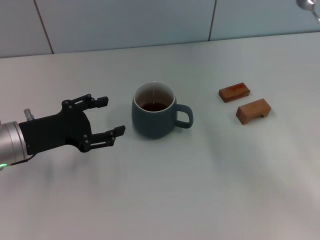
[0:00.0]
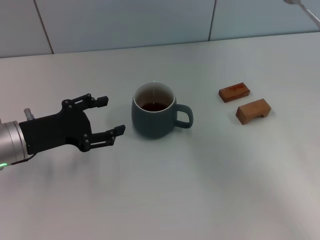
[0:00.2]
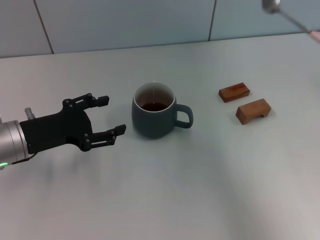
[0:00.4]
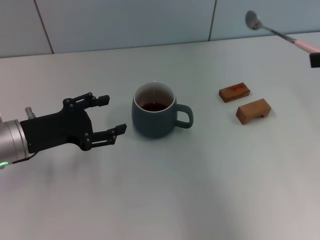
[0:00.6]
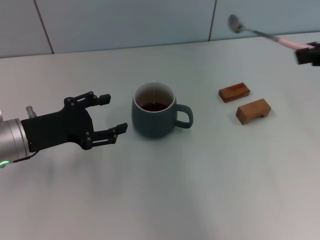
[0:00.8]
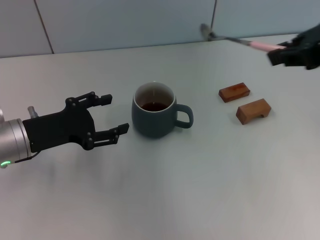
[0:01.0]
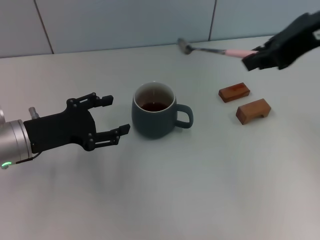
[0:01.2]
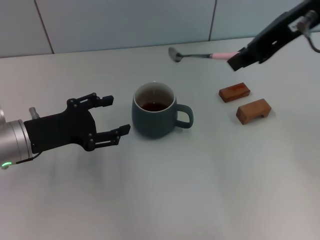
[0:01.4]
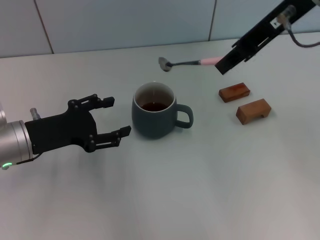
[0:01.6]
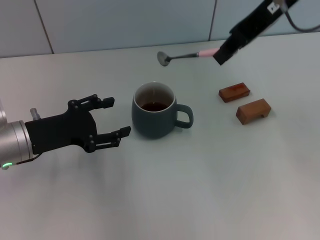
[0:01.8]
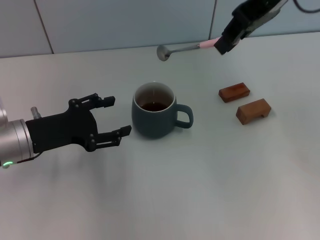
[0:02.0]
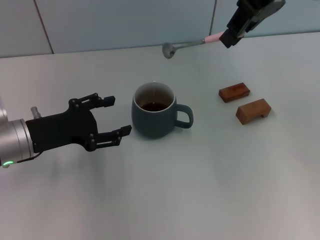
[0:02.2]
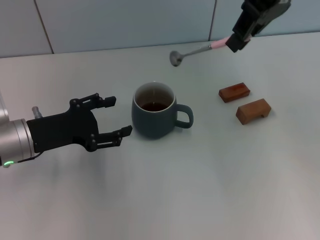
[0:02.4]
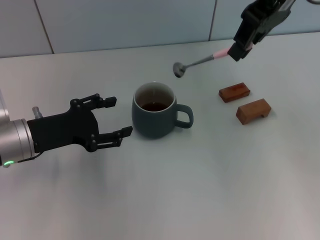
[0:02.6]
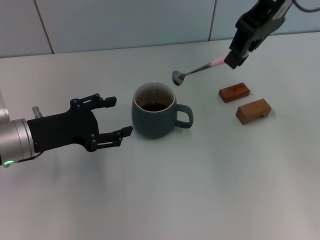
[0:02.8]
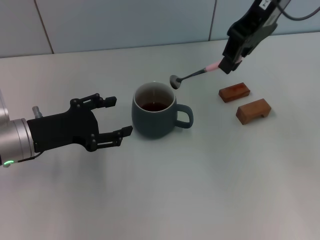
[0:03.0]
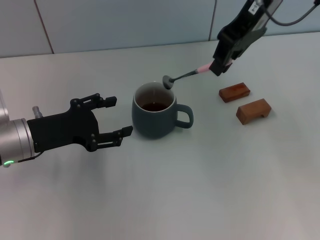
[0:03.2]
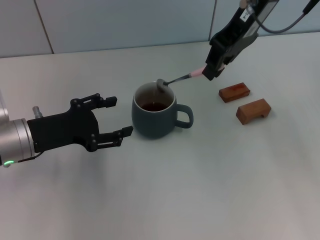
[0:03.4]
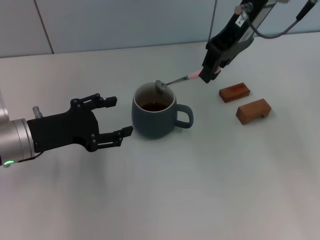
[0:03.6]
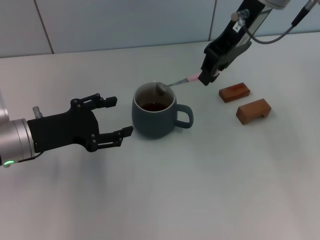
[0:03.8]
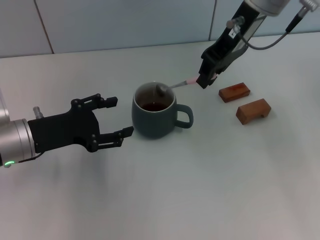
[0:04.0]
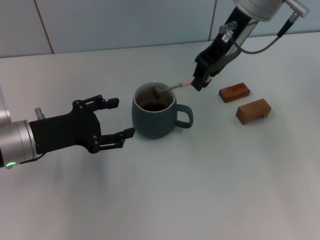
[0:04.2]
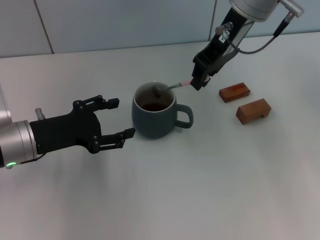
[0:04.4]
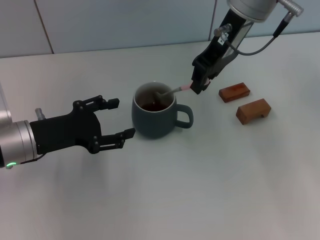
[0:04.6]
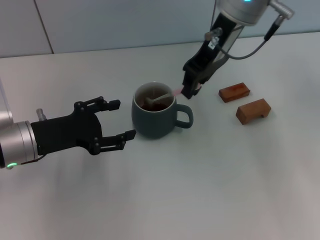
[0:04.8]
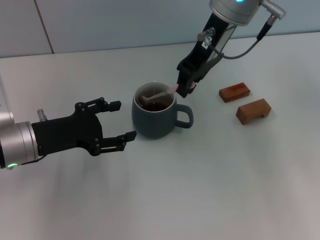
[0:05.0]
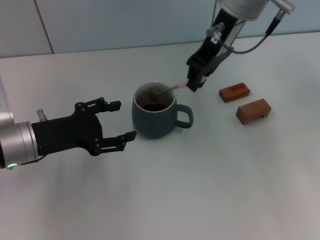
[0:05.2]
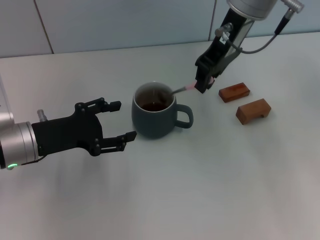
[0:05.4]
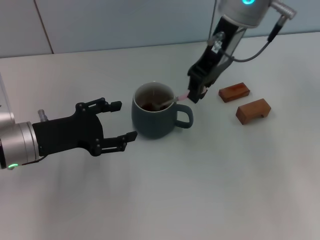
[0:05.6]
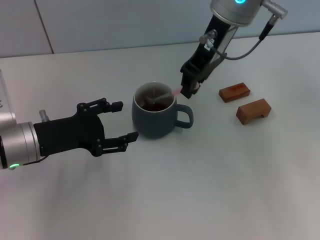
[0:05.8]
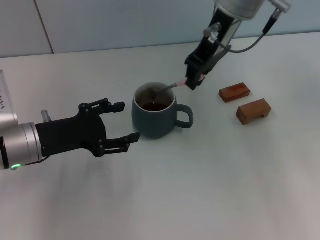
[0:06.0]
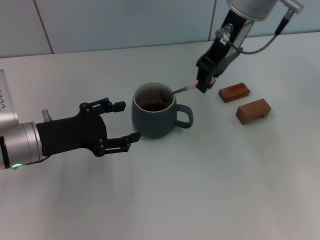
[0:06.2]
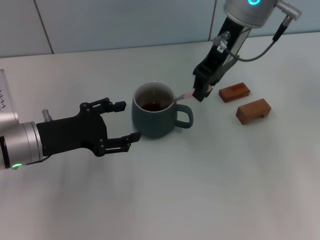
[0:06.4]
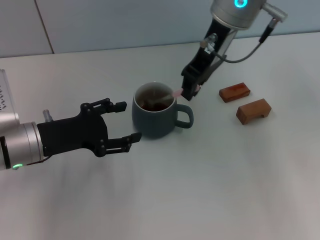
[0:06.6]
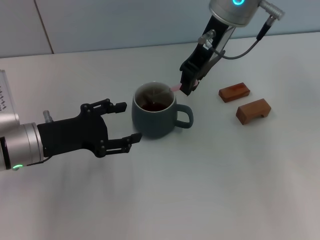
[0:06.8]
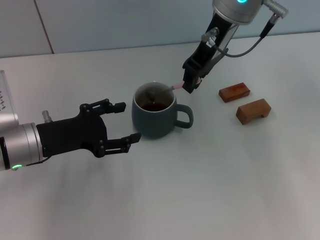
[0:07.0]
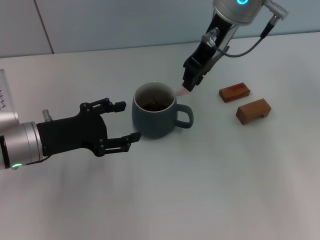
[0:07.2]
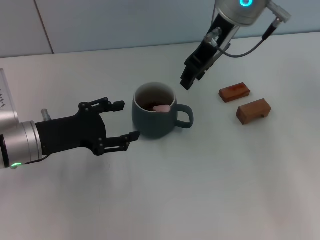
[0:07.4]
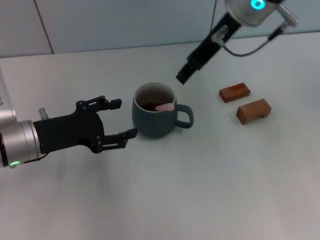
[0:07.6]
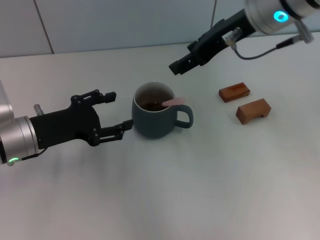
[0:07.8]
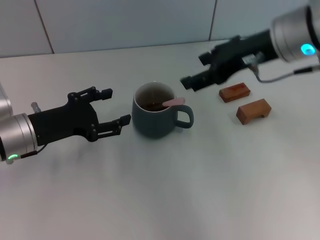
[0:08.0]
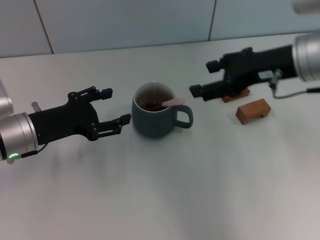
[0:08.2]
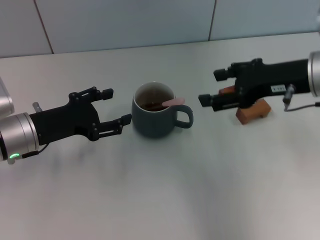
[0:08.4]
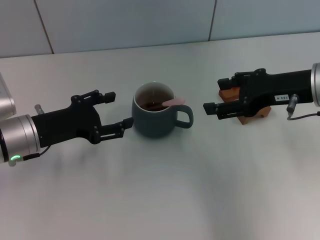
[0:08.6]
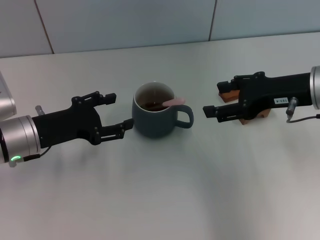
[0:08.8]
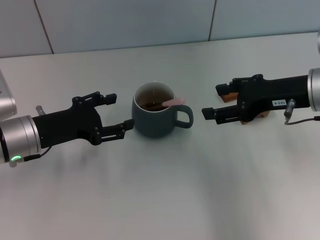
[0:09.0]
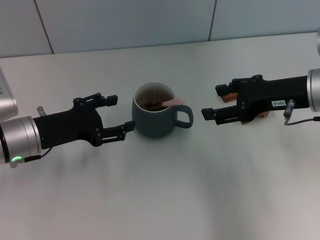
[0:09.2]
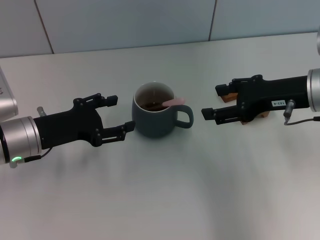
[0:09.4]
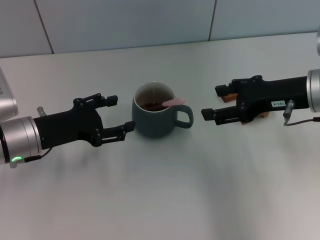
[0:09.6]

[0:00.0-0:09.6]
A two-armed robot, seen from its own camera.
Task of the whole recording: Move the grey cup to the center, lift the pink spoon, stir it three times in the cup, and put the spoon into the cup.
Step, 0:00.0 to 0:07.4: Stir the coffee in the cup with the right gripper.
0:00.0 to 0:01.6: The right gripper heads to the left, upward and forward, covering roughly 30 cm.
0:01.6 to 0:03.2: The right gripper travels forward by some 5 cm.
0:03.2 to 0:04.8: The right gripper moves about 5 cm.
0:04.8 to 0:06.4: The grippers move only a little.
0:06.4 to 0:08.0: The right gripper shifts roughly 10 cm to the right and backward, and opens up.
0:08.0 to 0:09.6: The right gripper travels downward and to the right by roughly 10 cm.

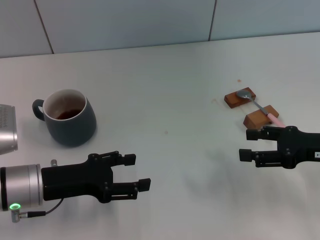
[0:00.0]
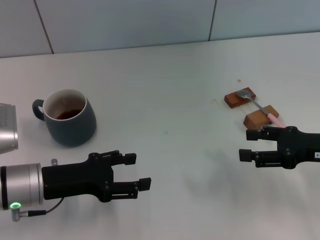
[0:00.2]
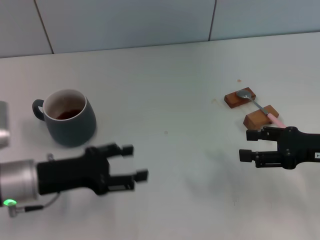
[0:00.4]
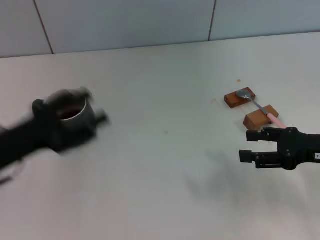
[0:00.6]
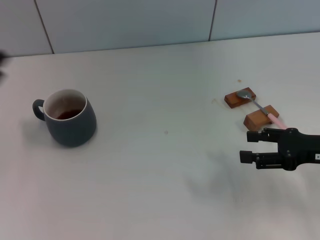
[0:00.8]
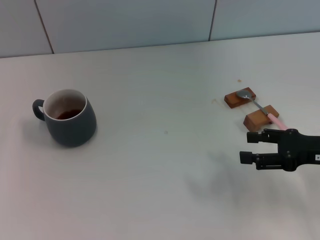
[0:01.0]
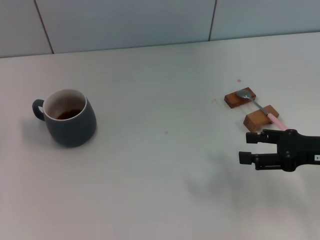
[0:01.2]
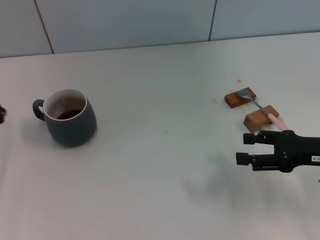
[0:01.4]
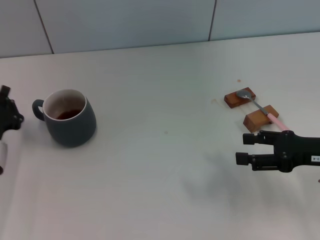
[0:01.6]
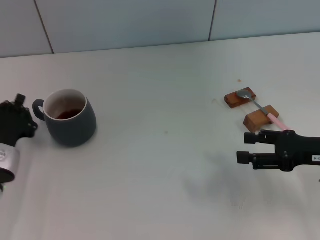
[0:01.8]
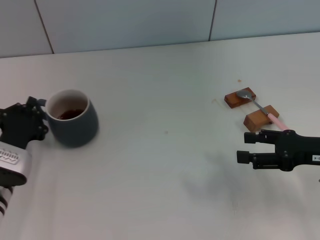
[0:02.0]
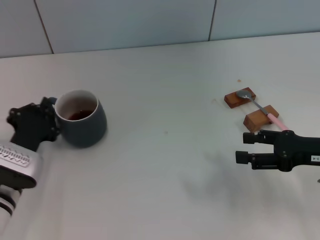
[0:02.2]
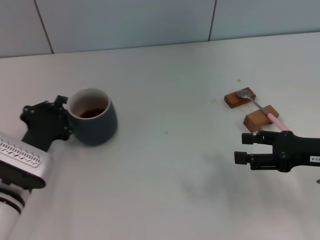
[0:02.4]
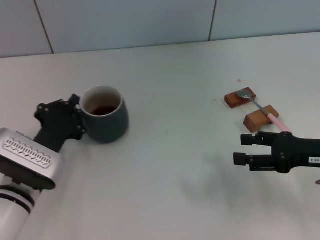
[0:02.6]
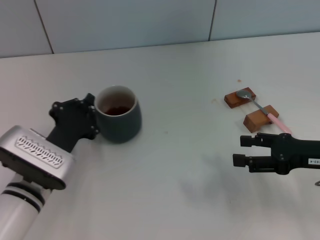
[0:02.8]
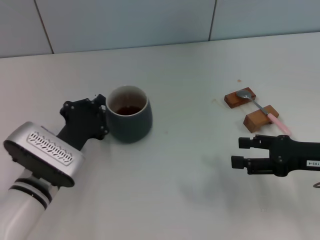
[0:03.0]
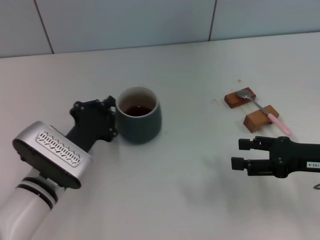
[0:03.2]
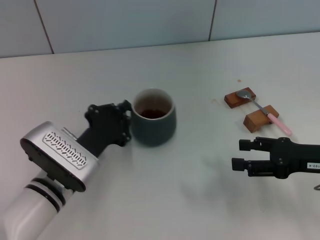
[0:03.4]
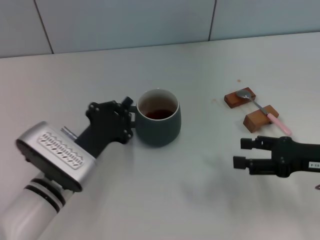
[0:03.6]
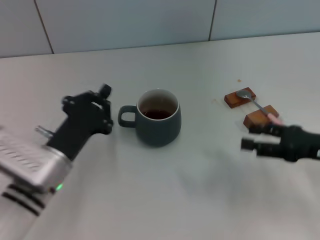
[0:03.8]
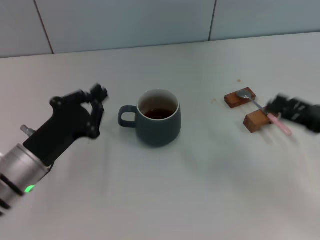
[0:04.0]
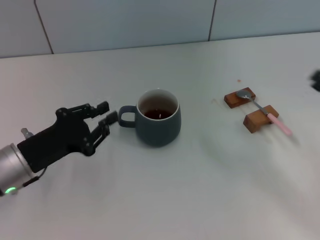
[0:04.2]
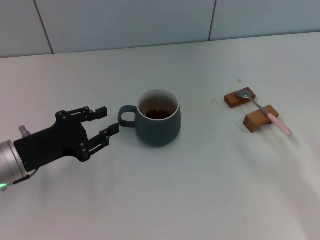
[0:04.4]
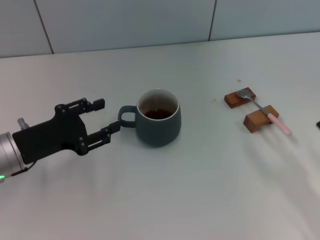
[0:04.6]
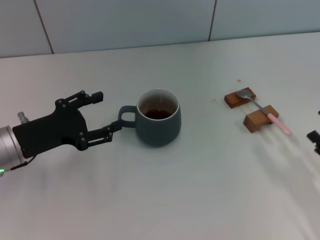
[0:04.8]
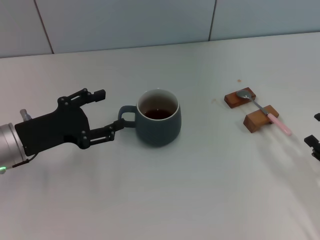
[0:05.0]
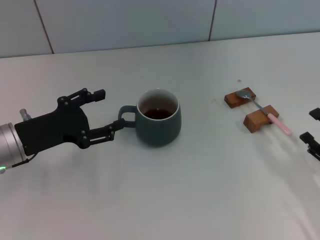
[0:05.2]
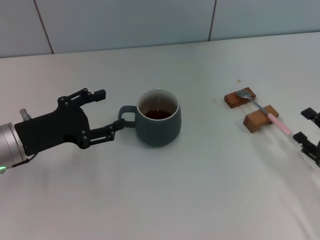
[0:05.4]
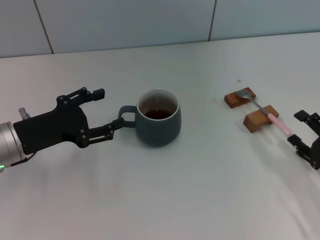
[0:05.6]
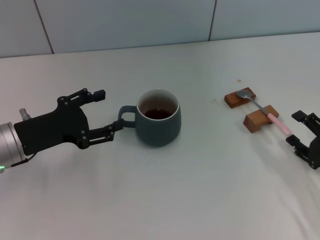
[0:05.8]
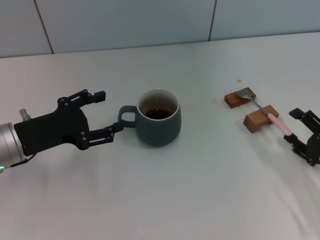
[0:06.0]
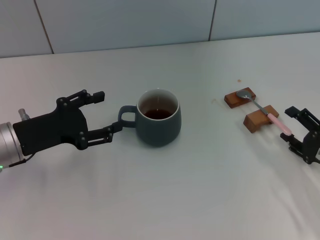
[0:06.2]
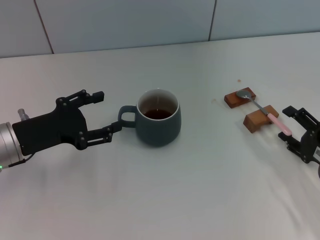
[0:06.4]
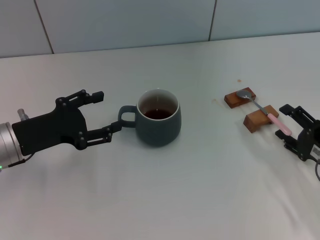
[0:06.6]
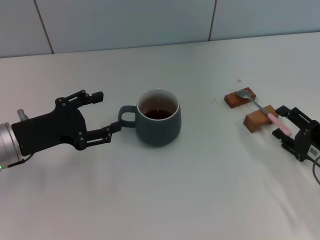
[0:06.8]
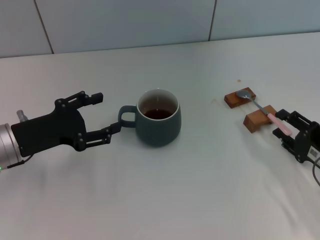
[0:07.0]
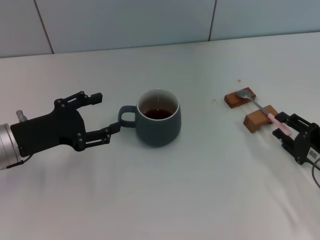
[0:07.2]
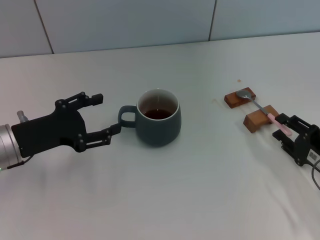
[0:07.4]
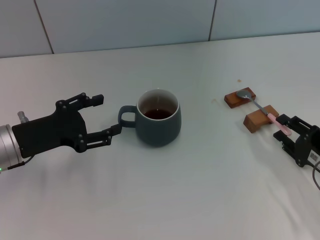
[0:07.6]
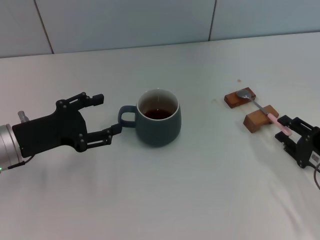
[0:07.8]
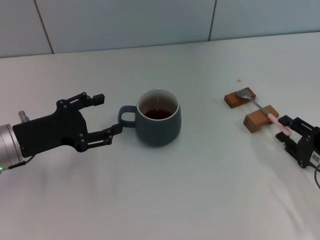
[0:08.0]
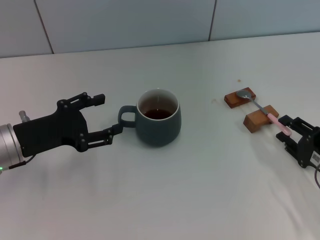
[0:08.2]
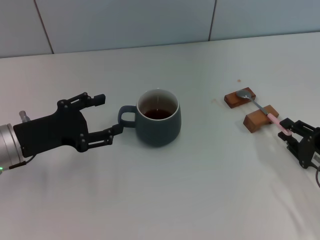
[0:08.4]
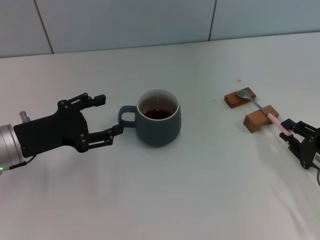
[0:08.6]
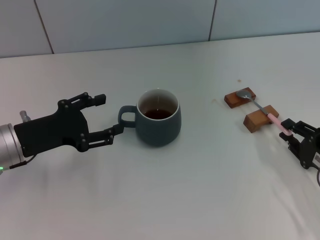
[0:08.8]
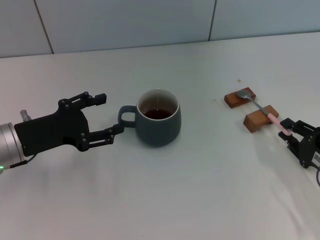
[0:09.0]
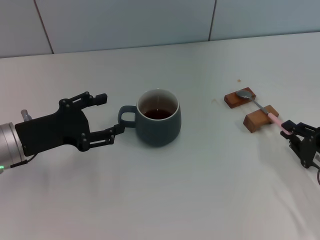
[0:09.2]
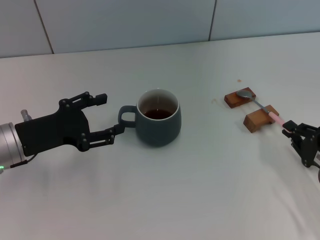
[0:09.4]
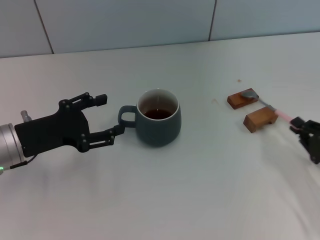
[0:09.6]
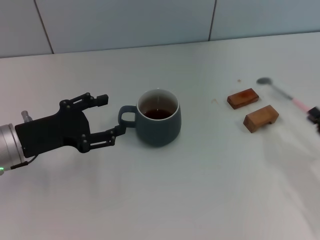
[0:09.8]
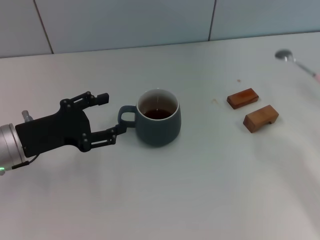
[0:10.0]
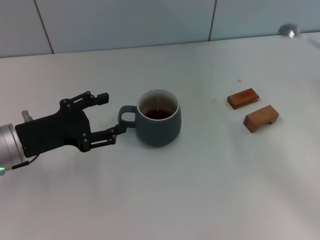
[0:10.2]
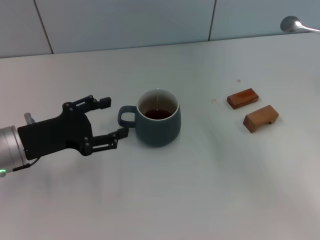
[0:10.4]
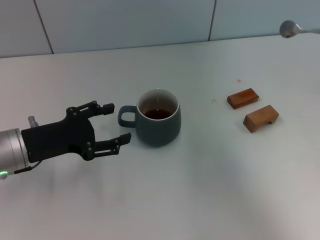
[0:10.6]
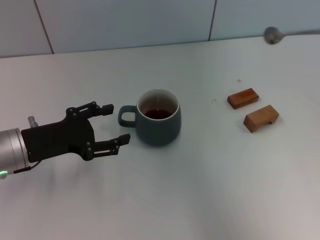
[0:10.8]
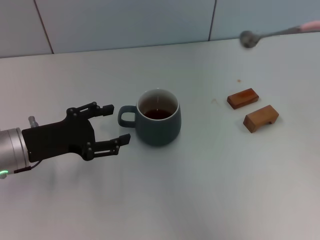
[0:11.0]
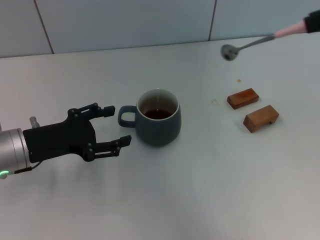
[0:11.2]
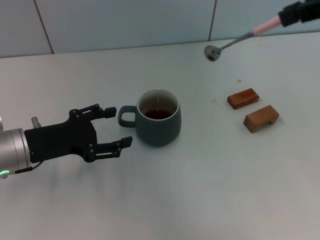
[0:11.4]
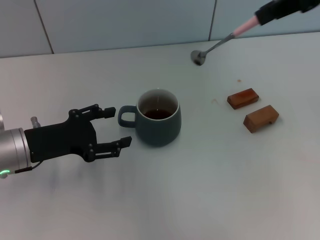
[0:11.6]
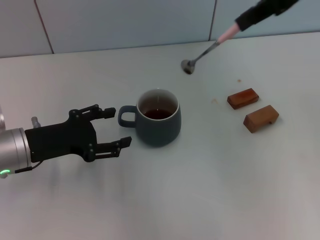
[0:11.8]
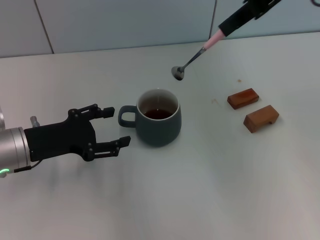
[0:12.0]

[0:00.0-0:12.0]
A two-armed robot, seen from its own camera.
Task of the whole recording: Move the grey cup to the center, lift the pink spoon, stir it three times in the cup, and put the spoon into the cup.
Step, 0:00.0 to 0:03.4: Move the cup with coffee to the center of view with the left gripper.
Step, 0:03.8 to 0:09.6: Pick up the spoon with the right gripper.
0:00.0 to 0:01.6: The left gripper moves to the left, about 5 cm, and closes.
0:01.6 to 0:03.0: The left gripper moves to the right, some 10 cm.
0:03.0 to 0:04.4: The left gripper goes approximately 5 cm to the left, while the right gripper heads backward and to the right, covering some 10 cm.
0:04.4 to 0:06.0: The right gripper changes place by some 5 cm; the left gripper opens.
0:06.0 to 0:07.6: The right gripper closes its fingers.
0:07.6 to 0:09.0: Both grippers stay about where they are.
0:09.0 to 0:10.4: The right gripper moves upward and to the right, approximately 20 cm.
0:10.4 to 0:12.0: The right gripper shifts some 30 cm to the left, forward and upward.
